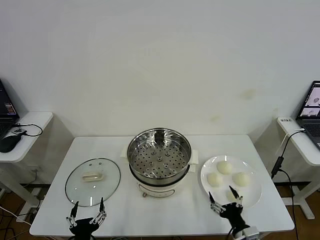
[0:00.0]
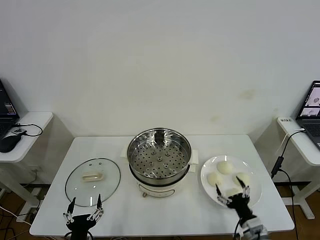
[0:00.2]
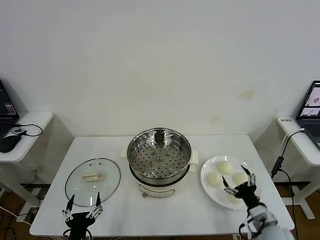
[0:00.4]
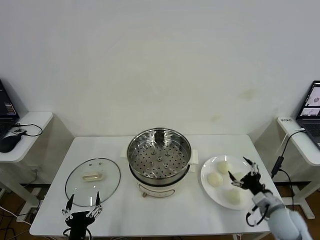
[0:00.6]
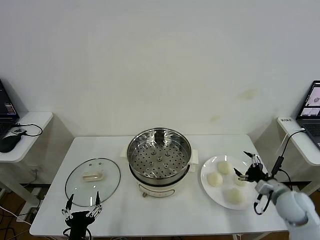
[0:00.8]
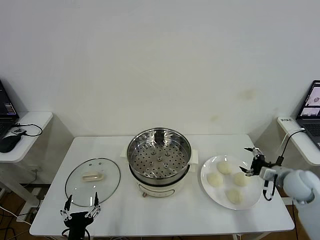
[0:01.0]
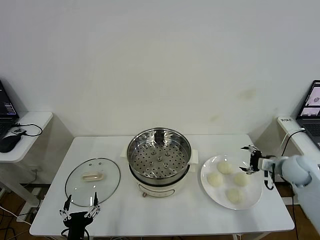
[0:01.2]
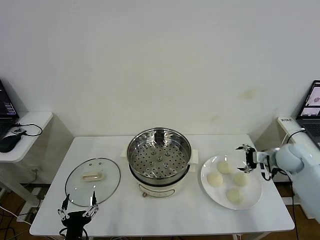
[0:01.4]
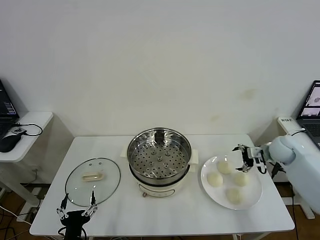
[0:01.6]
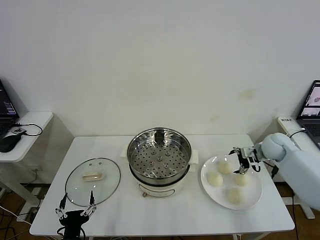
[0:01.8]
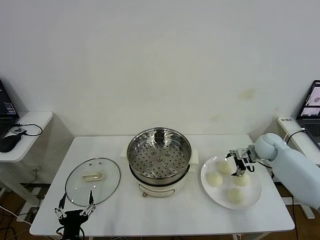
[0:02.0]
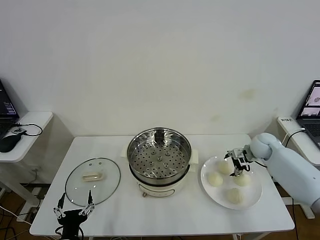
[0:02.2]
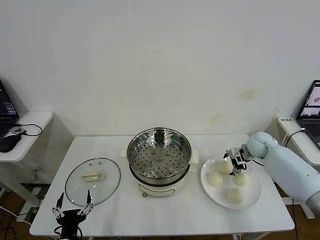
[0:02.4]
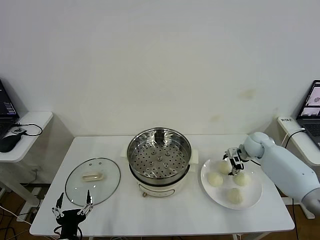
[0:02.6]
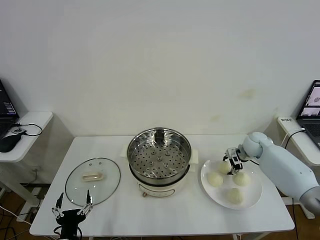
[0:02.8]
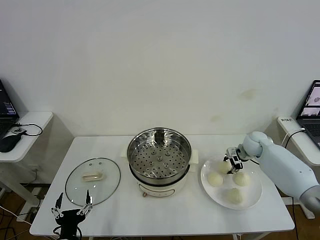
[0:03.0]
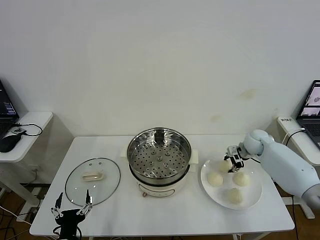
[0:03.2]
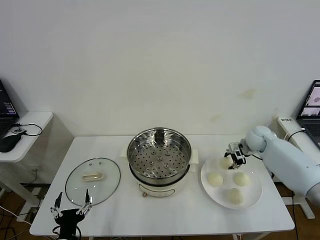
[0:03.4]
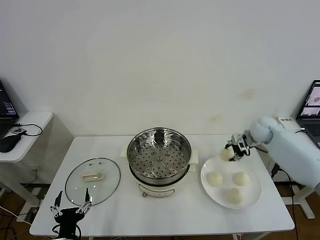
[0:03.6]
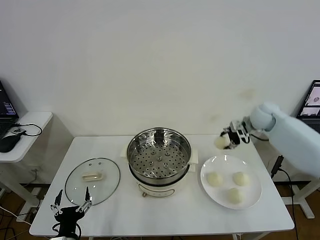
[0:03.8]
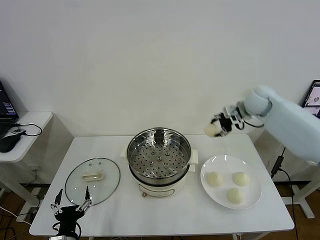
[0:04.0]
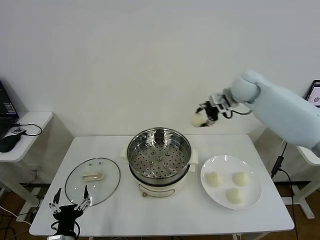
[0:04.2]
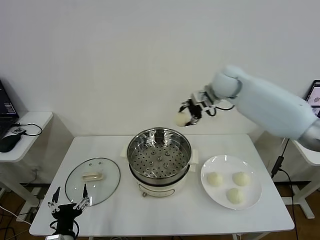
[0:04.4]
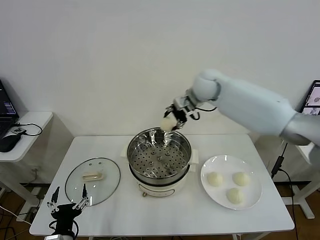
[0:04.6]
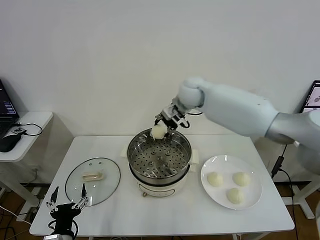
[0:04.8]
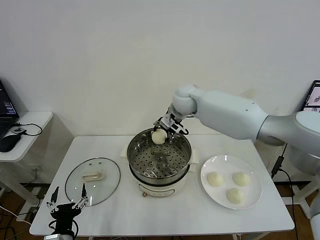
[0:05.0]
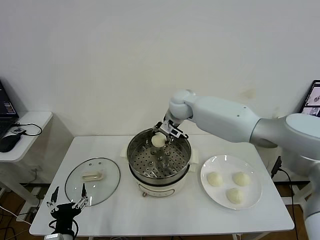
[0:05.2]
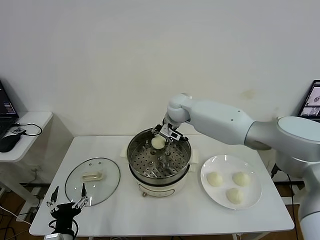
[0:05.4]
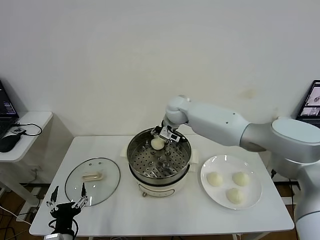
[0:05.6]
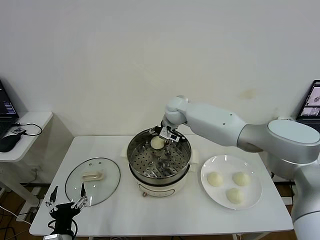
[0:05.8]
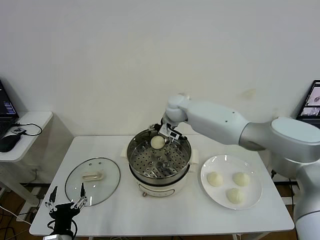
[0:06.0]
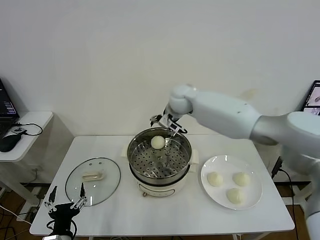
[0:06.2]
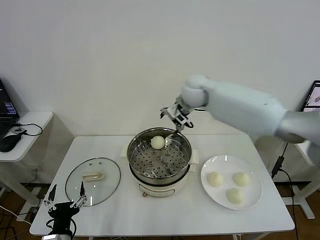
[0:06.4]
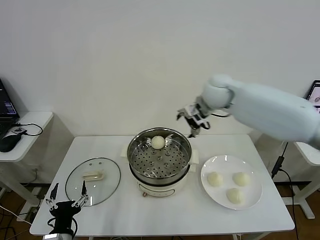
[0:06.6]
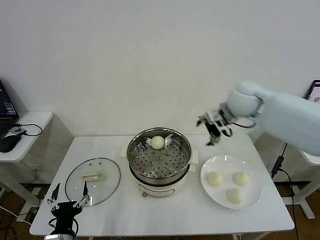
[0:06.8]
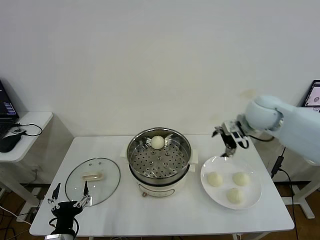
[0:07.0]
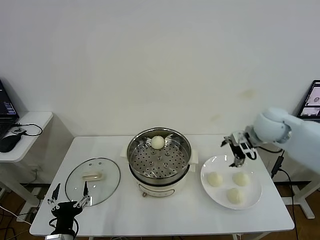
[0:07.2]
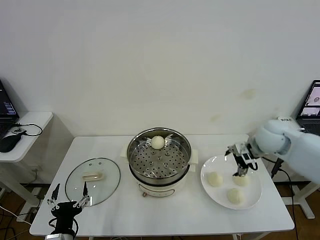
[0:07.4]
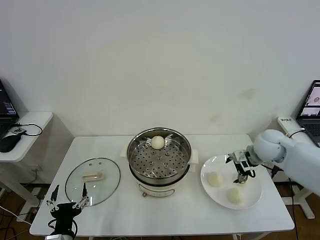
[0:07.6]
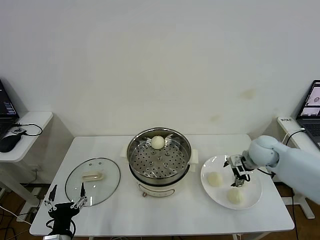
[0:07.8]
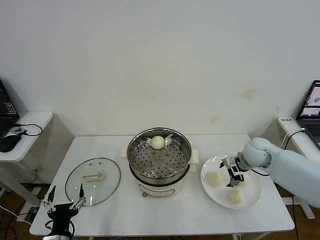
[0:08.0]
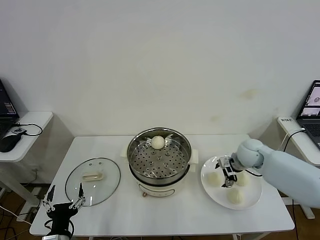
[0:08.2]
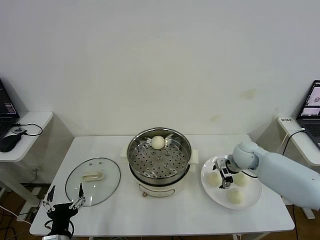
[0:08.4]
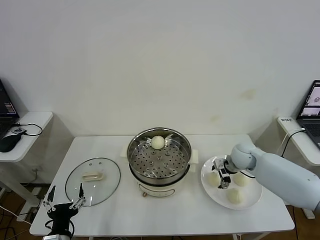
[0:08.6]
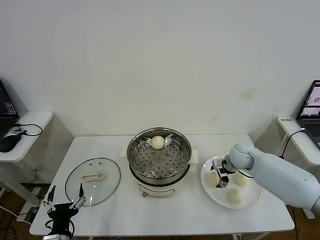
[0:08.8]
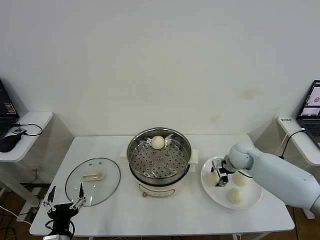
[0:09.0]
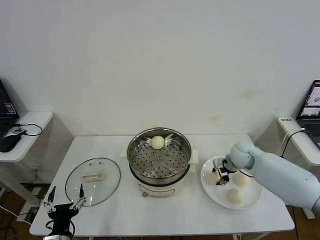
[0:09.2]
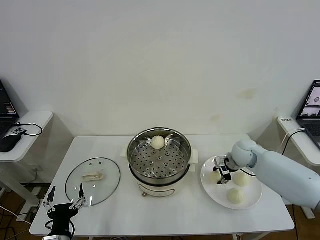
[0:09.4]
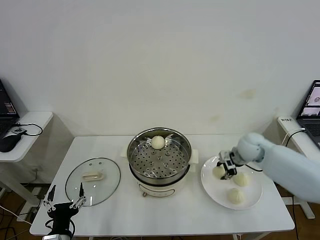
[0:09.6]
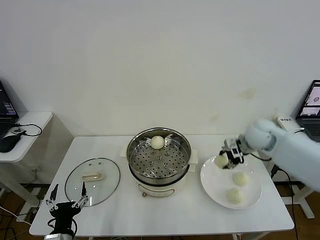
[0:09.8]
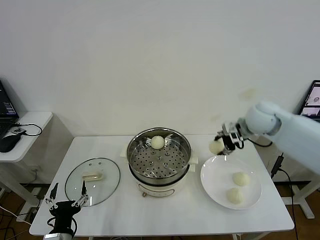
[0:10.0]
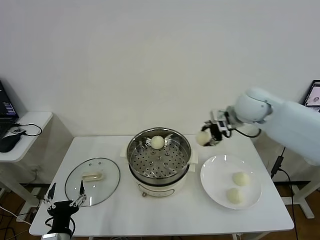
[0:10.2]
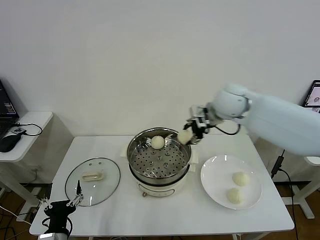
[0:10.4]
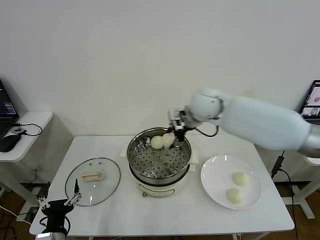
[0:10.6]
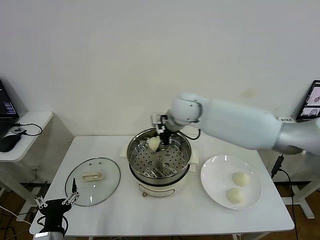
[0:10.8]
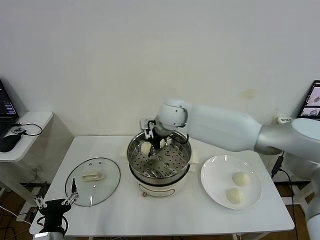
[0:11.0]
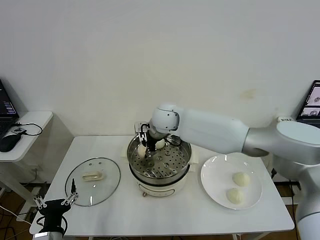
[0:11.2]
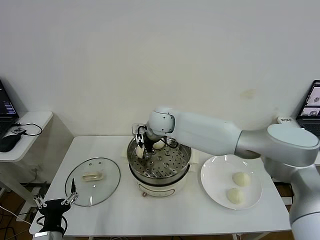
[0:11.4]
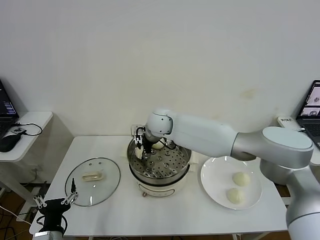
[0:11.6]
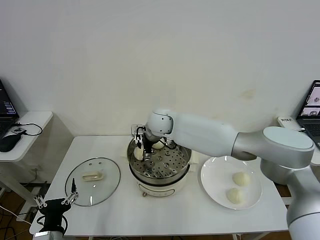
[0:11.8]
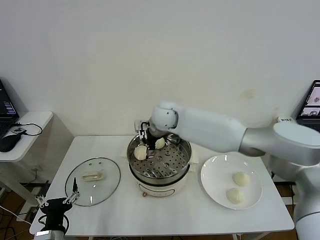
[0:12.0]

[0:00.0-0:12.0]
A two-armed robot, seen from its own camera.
Step, 0:00.0 to 0:03.0: Grasp the baozi in the plate with right gripper.
Step, 0:03.2 to 0:05.8: Place the baozi on the steamer with right gripper.
Step, 0:06.0 to 0:09.0: Grasp the baozi in the plate with right gripper.
Step, 0:09.2 to 0:11.8: Place the baozi on the steamer with right gripper.
0:01.6 to 0:03.0: The right gripper is displaced forward by roughly 5 cm, and closes its fingers.
0:03.0 to 0:04.4: The right gripper shifts some 30 cm upward and to the left.
0:04.4 to 0:06.0: The right gripper goes about 15 cm to the left and downward, and opens its fingers.
0:06.0 to 0:07.6: The right gripper heads to the right and backward, covering roughly 30 cm.
0:07.6 to 0:09.0: The right gripper heads downward, covering some 10 cm, and closes.
0:09.0 to 0:10.4: The right gripper moves upward and to the left, roughly 25 cm.
0:10.4 to 0:12.0: The right gripper moves to the left and downward, roughly 15 cm, and opens.

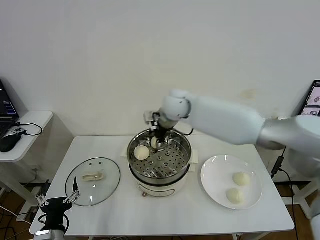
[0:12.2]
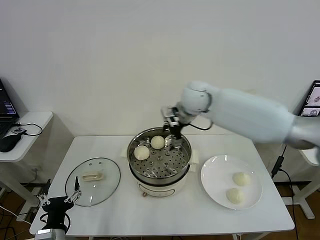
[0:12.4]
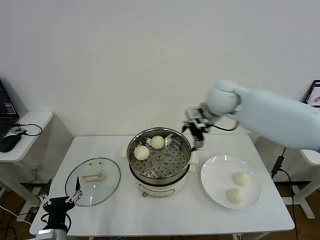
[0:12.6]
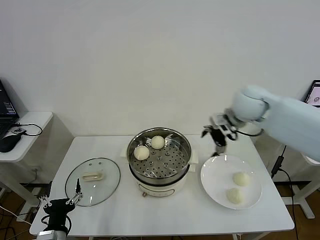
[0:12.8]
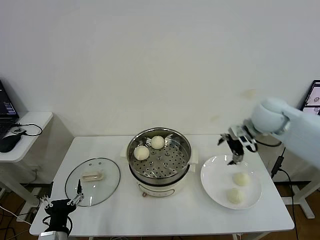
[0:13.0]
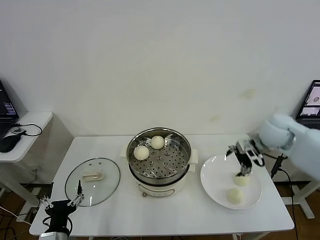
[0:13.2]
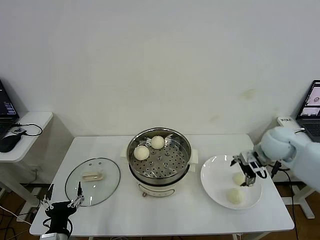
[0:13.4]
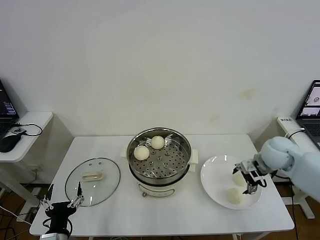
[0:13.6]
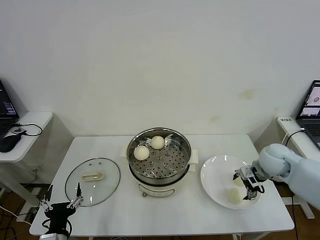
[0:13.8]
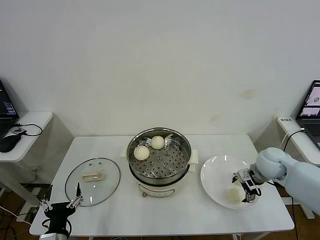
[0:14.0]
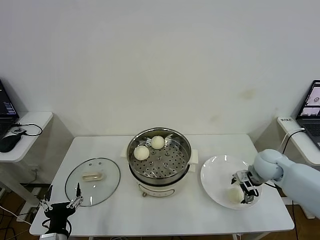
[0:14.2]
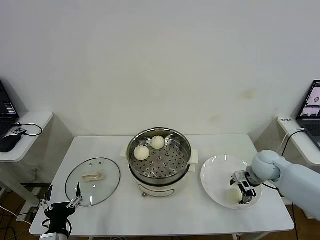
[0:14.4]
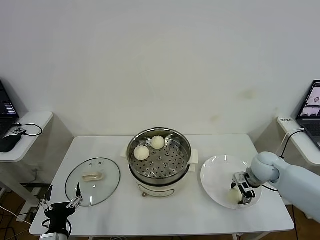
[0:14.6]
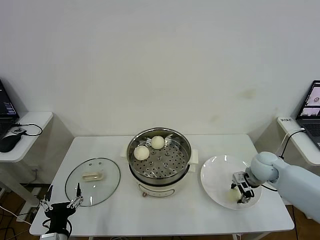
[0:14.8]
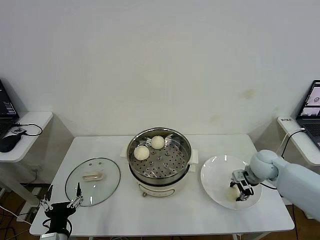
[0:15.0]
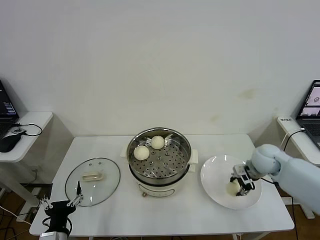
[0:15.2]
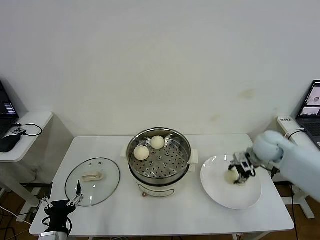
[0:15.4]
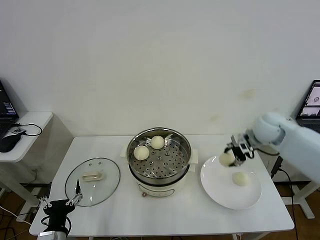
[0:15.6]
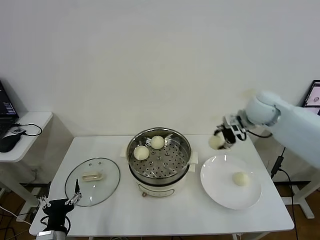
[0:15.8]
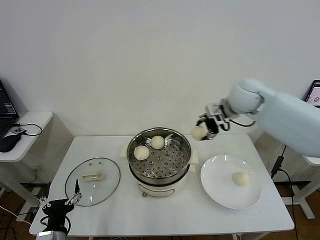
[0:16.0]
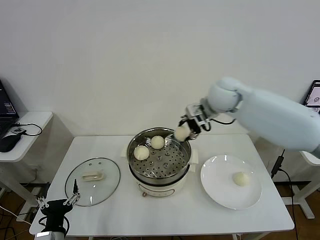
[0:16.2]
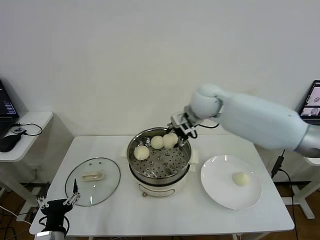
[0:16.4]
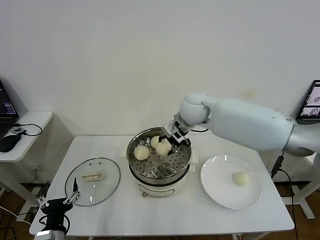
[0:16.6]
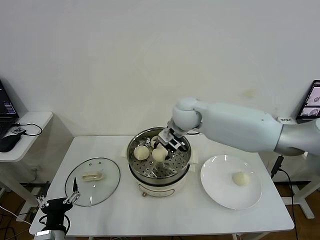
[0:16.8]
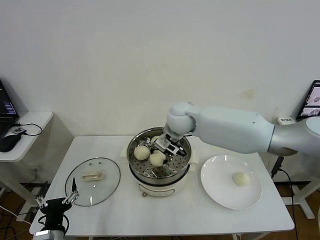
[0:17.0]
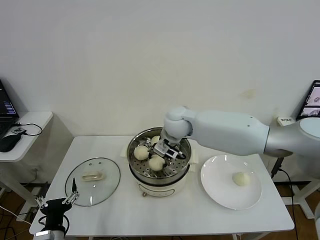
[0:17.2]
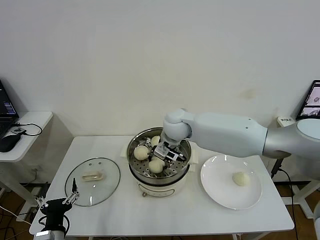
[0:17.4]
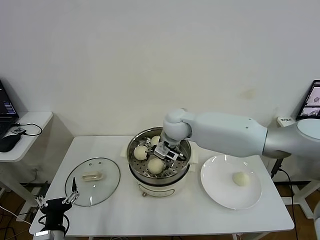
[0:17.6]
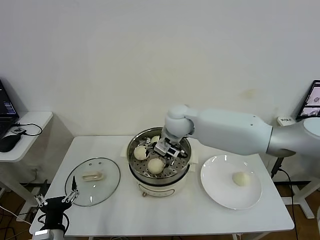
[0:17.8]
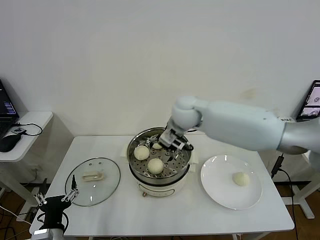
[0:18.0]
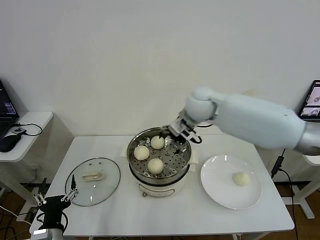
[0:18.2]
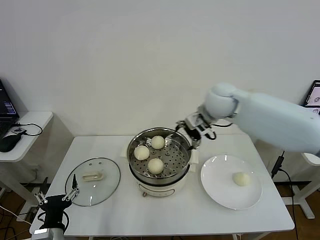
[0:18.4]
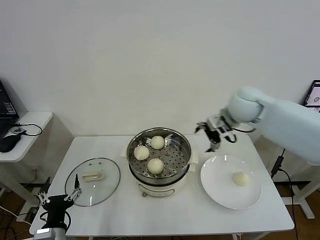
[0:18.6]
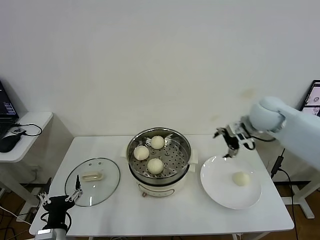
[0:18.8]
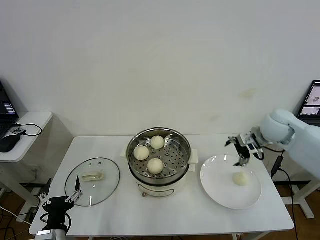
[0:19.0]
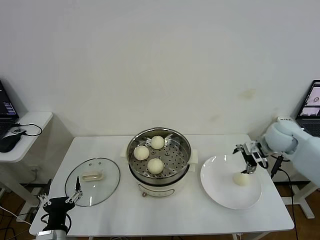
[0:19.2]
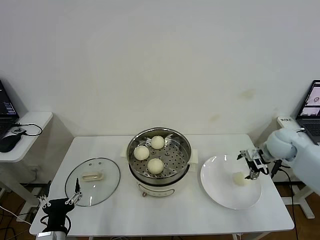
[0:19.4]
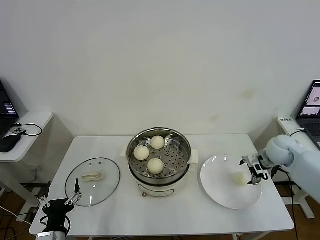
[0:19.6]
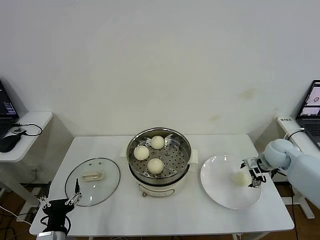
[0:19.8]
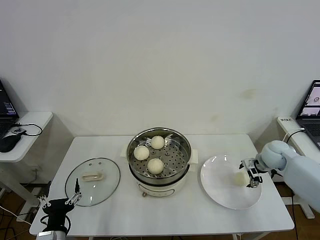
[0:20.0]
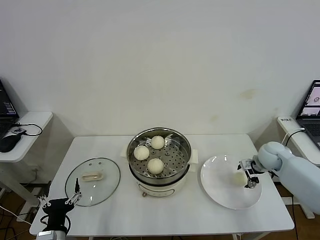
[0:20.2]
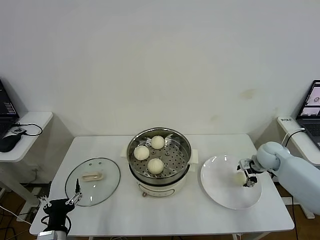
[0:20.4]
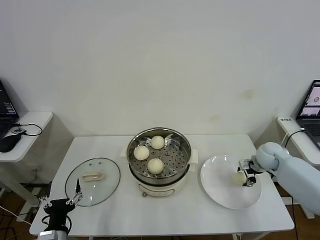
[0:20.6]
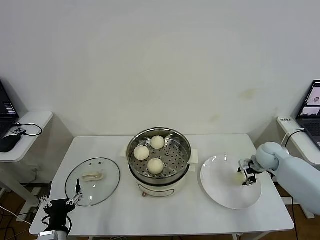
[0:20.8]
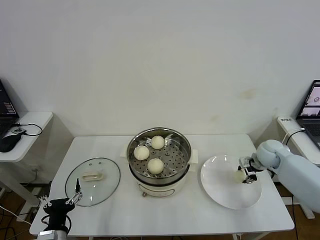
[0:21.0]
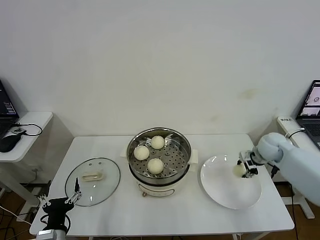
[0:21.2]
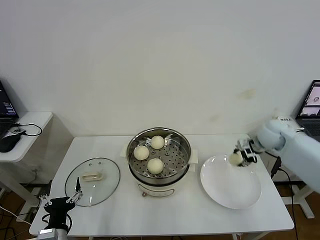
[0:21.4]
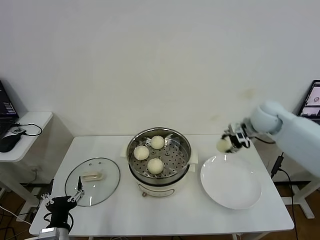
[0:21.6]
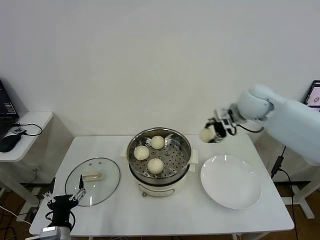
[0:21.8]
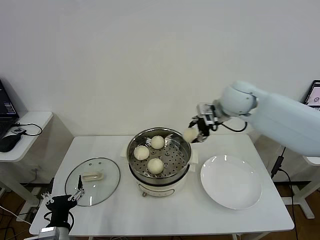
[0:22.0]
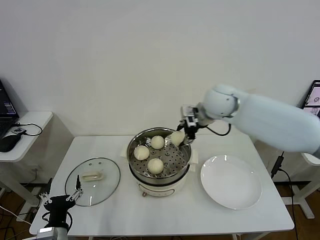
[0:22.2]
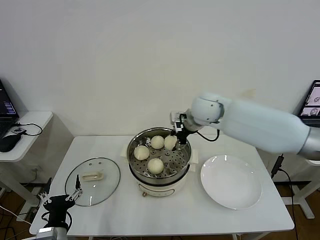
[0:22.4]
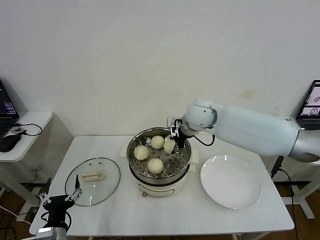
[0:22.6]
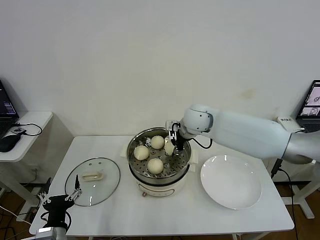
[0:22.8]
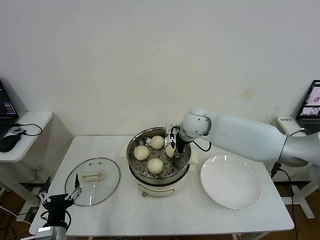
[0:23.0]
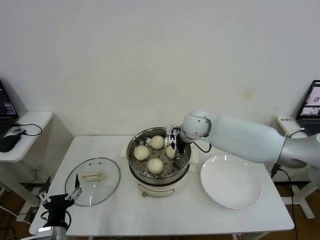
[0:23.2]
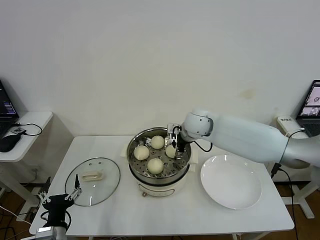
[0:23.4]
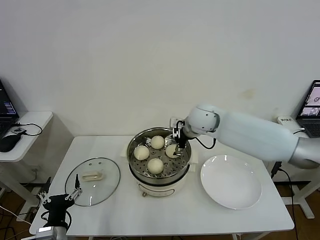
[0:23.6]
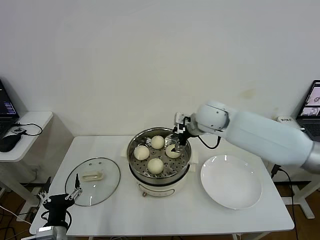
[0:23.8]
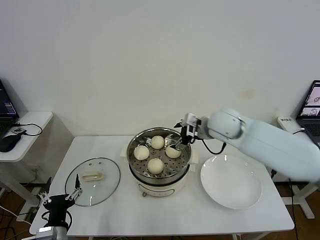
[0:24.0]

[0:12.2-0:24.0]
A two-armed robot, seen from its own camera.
Step, 0:12.2 to 0:14.8: Grasp the baozi in the plate with right gripper.
Step, 0:15.0 to 0:17.6: Place the baozi on the steamer with right gripper.
Step, 0:17.8 to 0:20.8: Grasp the baozi in the plate with right gripper.
Step, 0:21.0 to 0:23.4: Place the baozi on the steamer with right gripper.
0:12.2 to 0:13.6: The right gripper goes approximately 35 cm to the right and downward.
0:13.6 to 0:15.2: The right gripper closes its fingers.
0:15.2 to 0:16.6: The right gripper heads to the left and upward, covering some 30 cm.
0:16.6 to 0:18.2: The right gripper opens.
0:18.2 to 0:19.6: The right gripper is displaced to the right and downward by roughly 35 cm.
0:19.6 to 0:21.0: The right gripper closes.
0:21.0 to 0:22.6: The right gripper is displaced to the left and upward by approximately 30 cm.
0:22.6 to 0:24.0: The right gripper moves to the right, about 5 cm, and opens its fingers.
